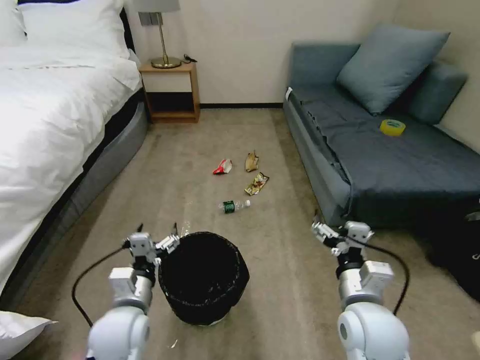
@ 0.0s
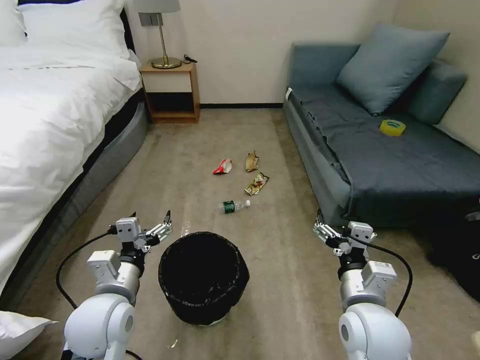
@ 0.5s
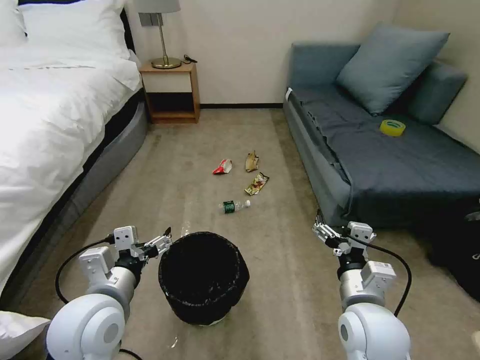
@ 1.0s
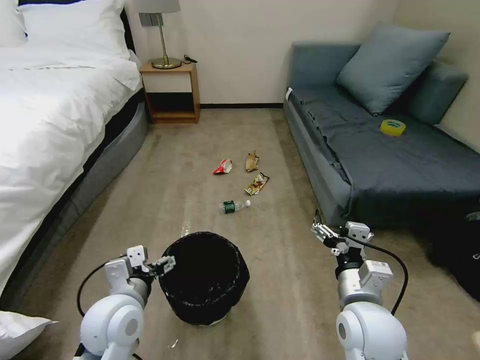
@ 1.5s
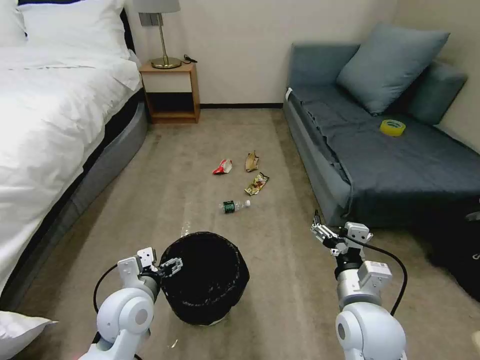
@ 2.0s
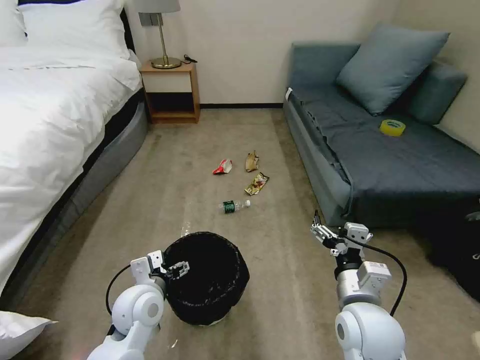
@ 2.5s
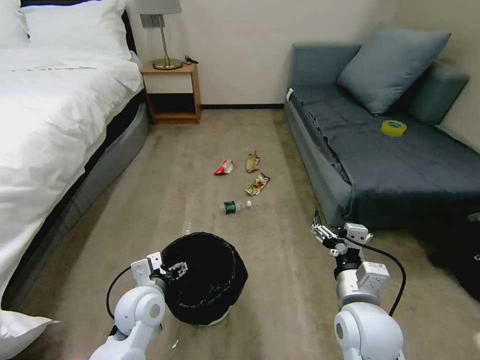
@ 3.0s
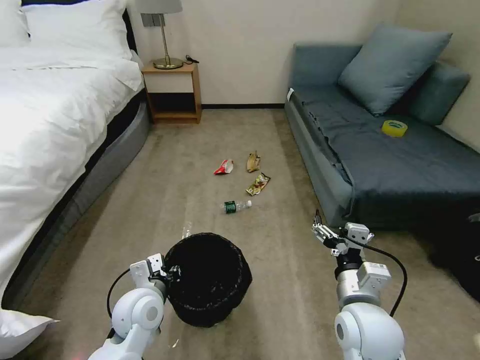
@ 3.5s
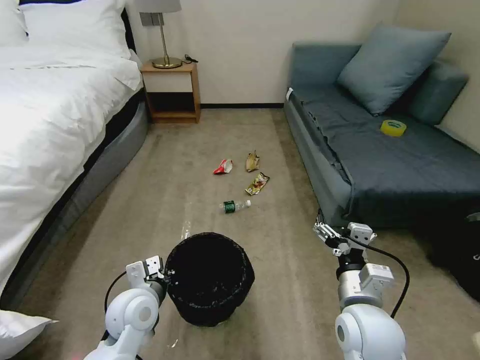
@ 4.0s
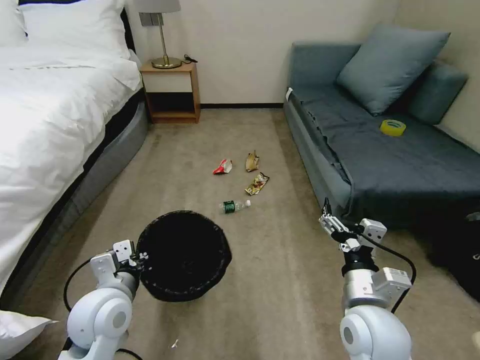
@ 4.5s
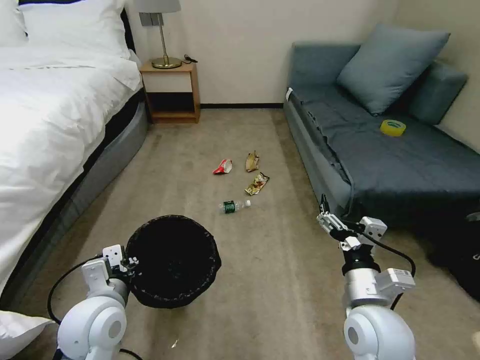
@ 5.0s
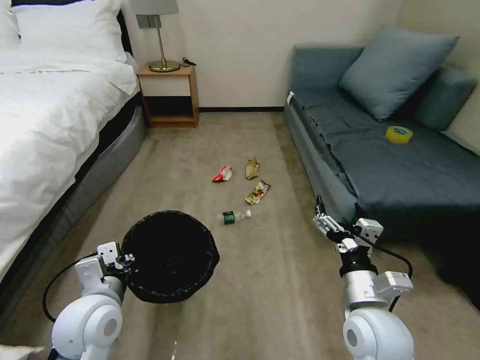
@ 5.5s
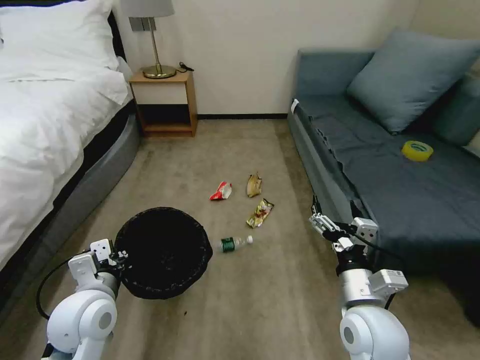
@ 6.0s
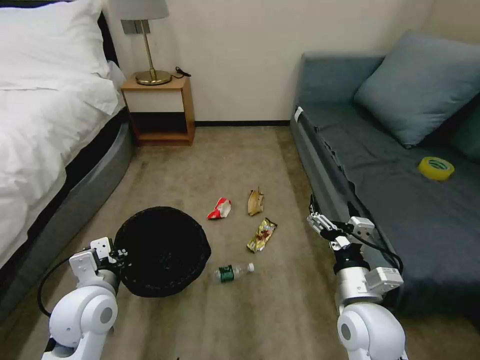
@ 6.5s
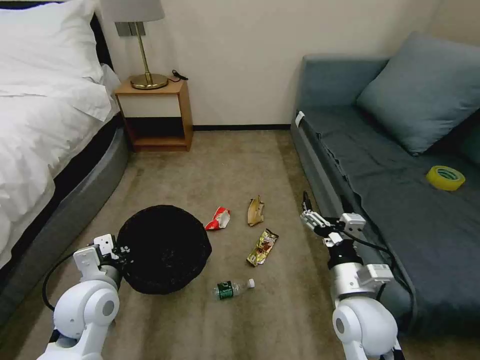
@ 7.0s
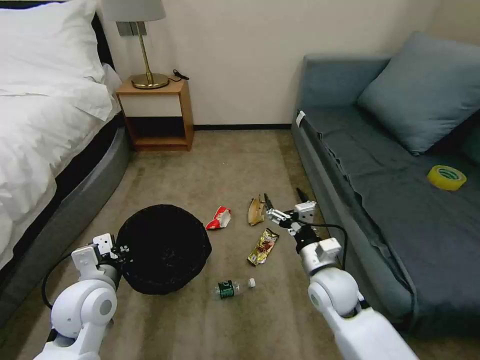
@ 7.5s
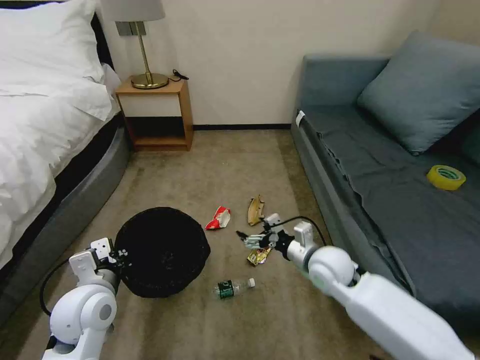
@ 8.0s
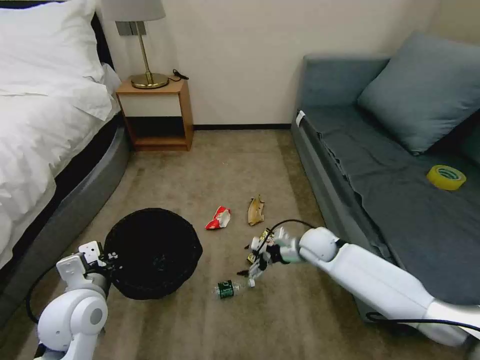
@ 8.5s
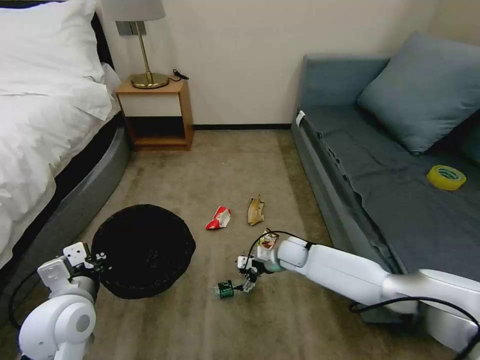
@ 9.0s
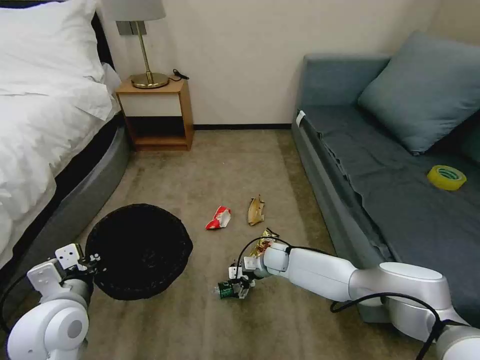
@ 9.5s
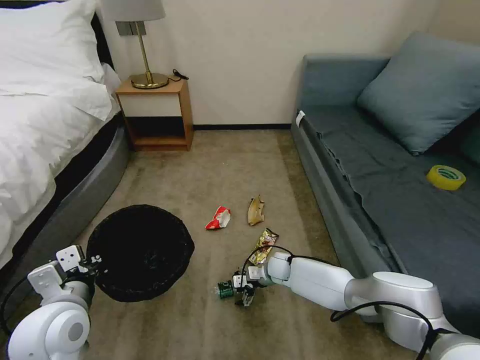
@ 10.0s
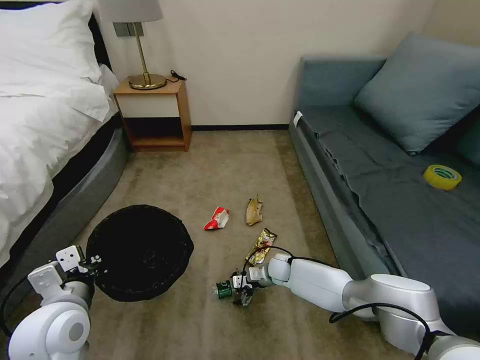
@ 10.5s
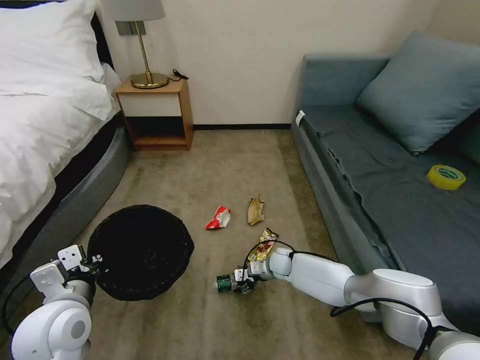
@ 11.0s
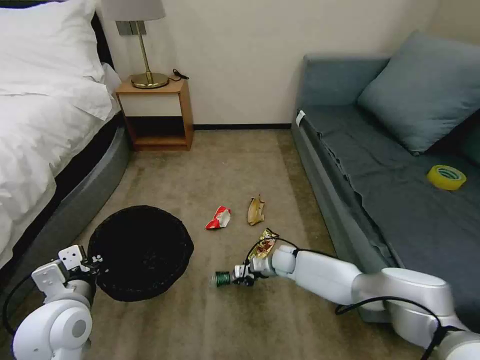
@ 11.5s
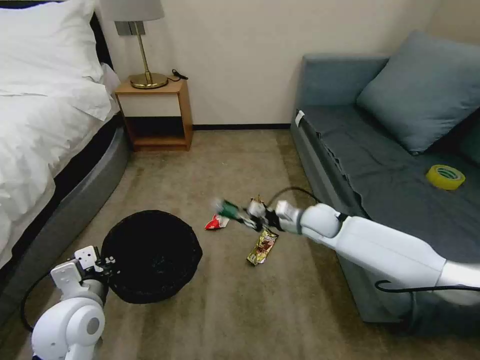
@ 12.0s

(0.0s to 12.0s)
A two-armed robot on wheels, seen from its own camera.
Task of the whole recording: Pick up the trash bin, then pick up the garbage on the floor and place it into the trash bin.
0.0s - 2.0s: The left gripper reaches some 10 cm upward, then returns.
2.0s - 4.0s: The left gripper closes.
4.0s - 6.0s: The left gripper travels upward by approximately 5 cm.
6.0s - 8.0s: The right gripper shifts about 15 cm forward.
8.0s - 10.0s: The left gripper changes place by some 5 cm, while the right gripper moves downward and forward, roughly 20 cm.
10.0s - 12.0s: The right gripper moves upward, roughly 20 cm, and closes up.

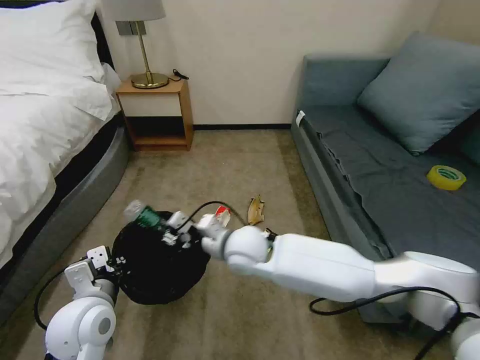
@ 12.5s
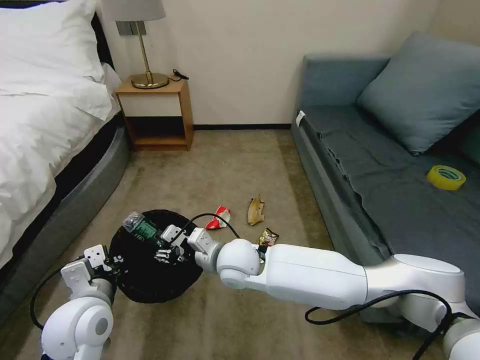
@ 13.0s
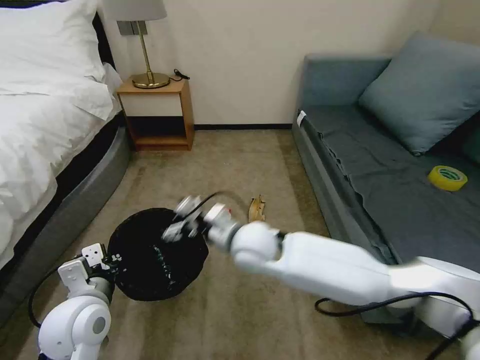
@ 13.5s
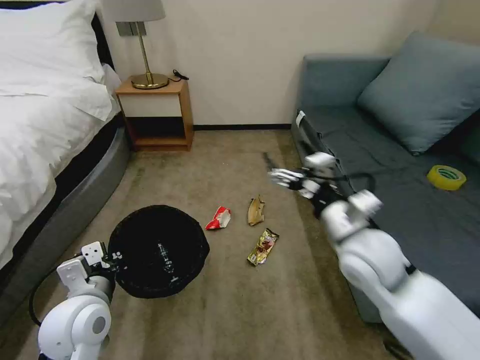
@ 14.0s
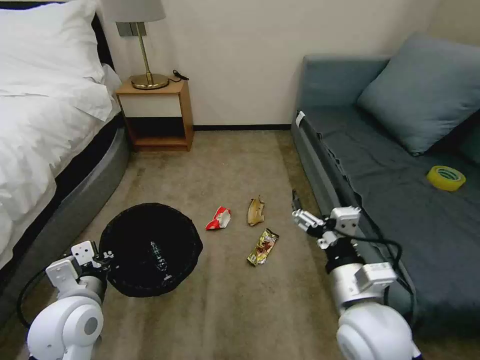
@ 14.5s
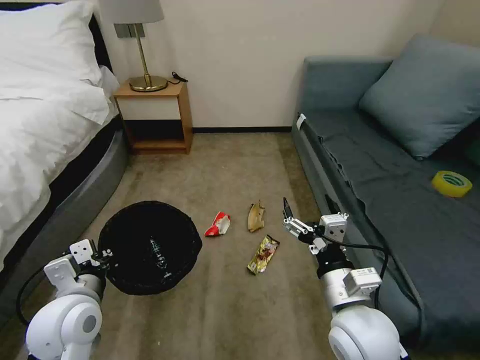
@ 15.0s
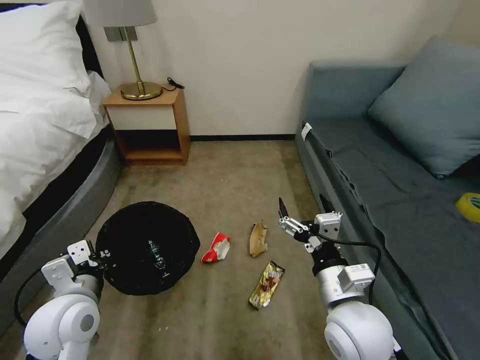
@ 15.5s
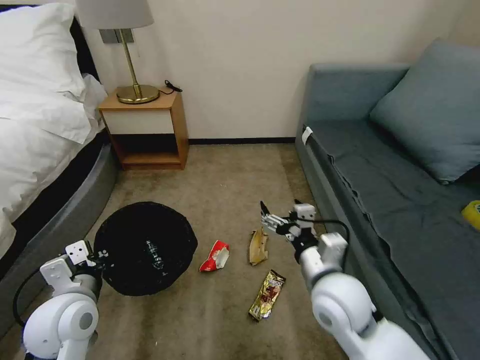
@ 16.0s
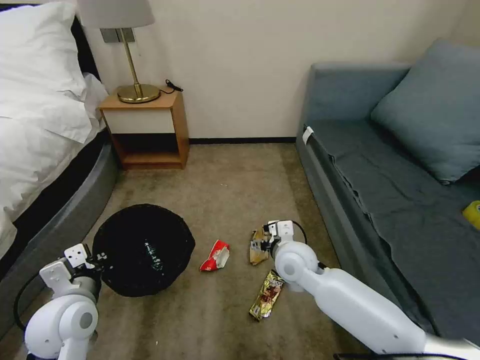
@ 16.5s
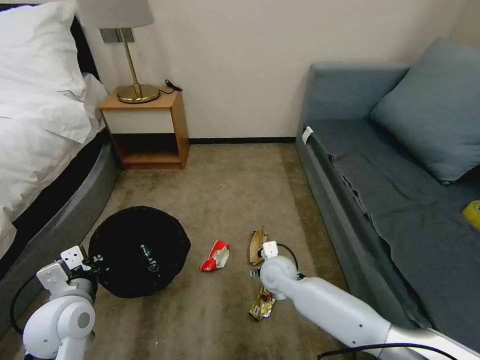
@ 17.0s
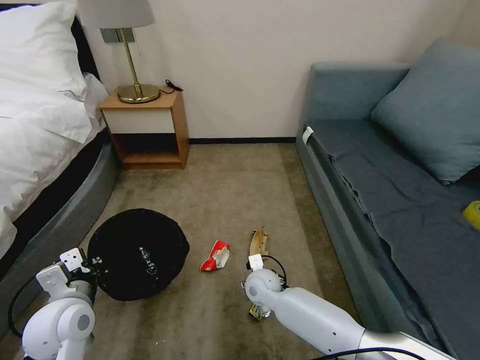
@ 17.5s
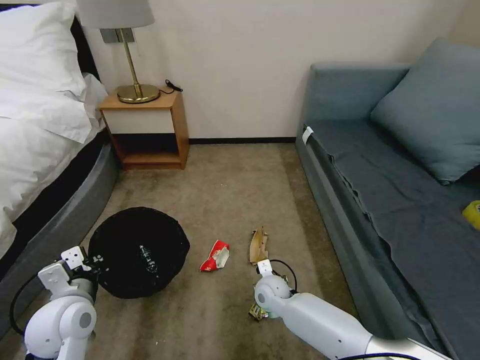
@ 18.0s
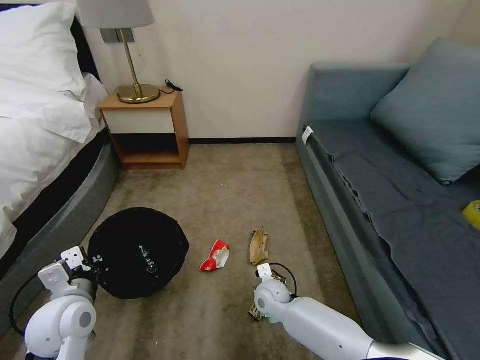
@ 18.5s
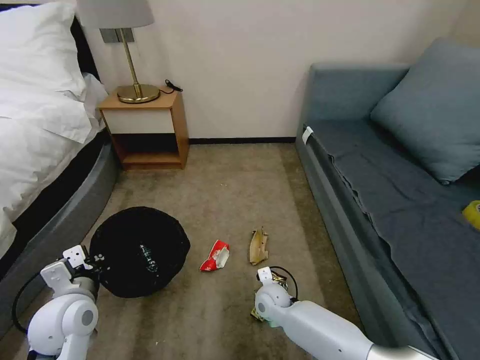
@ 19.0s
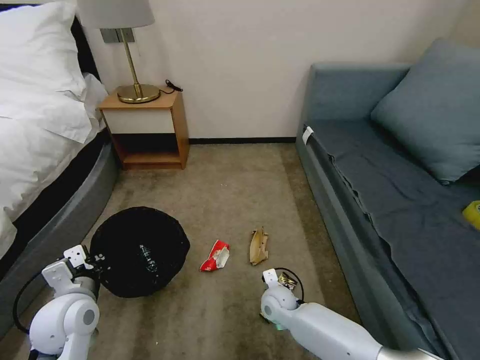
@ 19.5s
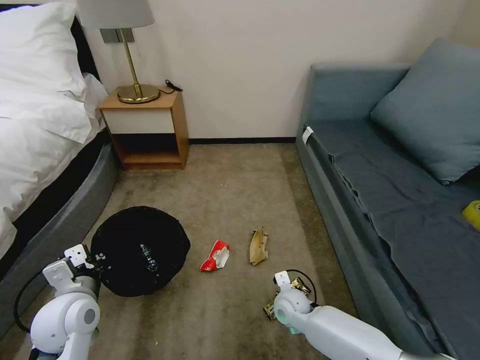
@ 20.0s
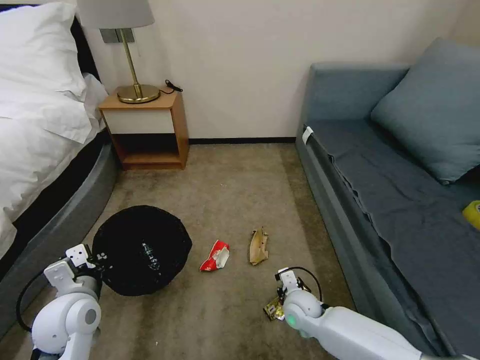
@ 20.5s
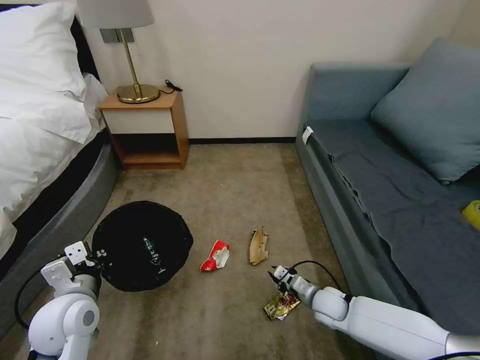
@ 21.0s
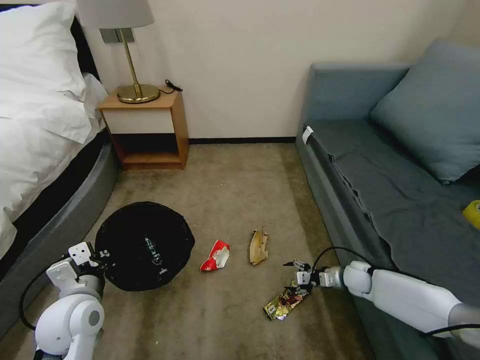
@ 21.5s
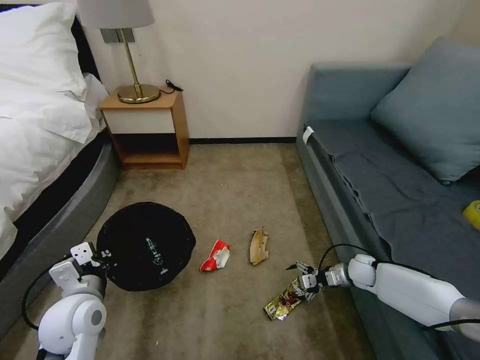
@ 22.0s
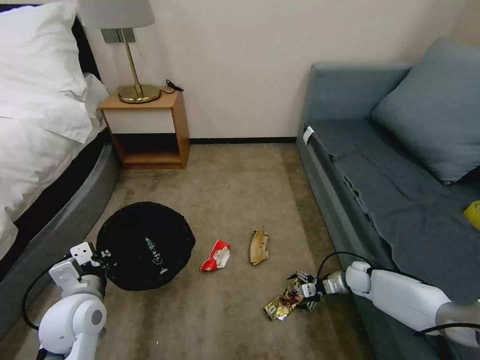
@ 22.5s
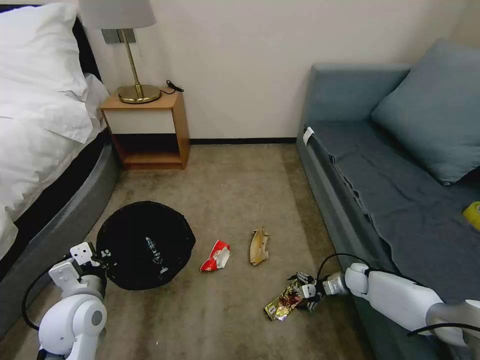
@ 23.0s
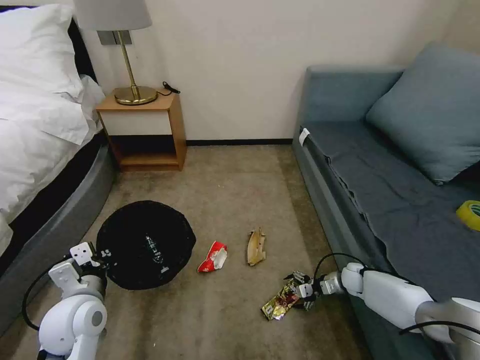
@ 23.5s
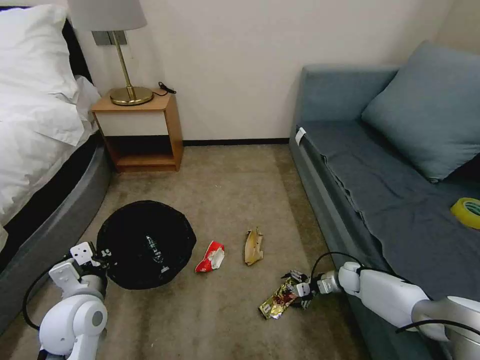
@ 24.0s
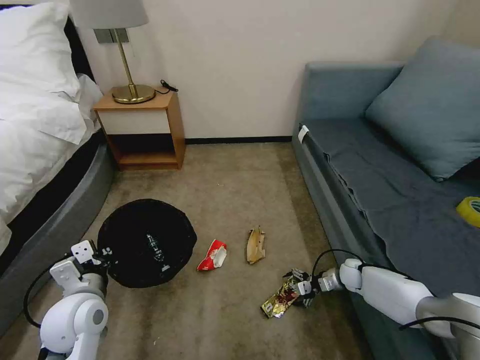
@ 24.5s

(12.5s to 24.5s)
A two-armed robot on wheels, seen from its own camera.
Task of the whole recording: Pick up the trash bin, then pick up the garbage on the floor and place it into the trash bin.
12.5s - 14.5s: The right gripper shifts about 25 cm backward and to the right, and opens.
14.5s - 16.5s: The right gripper is displaced forward, downward and to the left by approximately 20 cm.
16.5s - 18.5s: The right gripper goes approximately 15 cm downward.
18.5s - 20.5s: The right gripper heads to the right, covering about 5 cm, and closes.
20.5s - 22.5s: The right gripper shifts about 25 cm to the right and forward, and opens.
22.5s - 24.5s: The grippers move only a little.

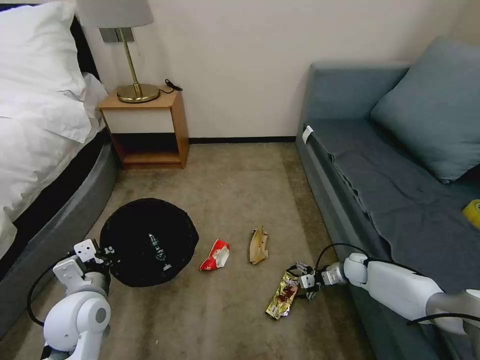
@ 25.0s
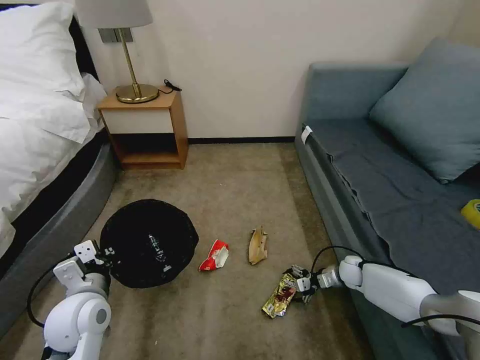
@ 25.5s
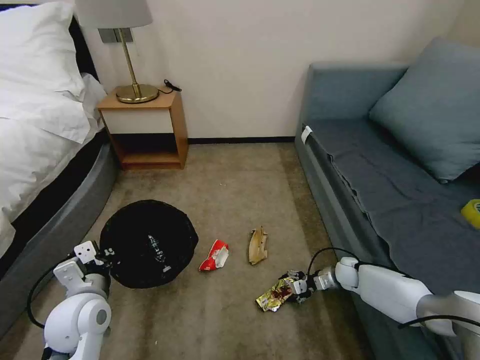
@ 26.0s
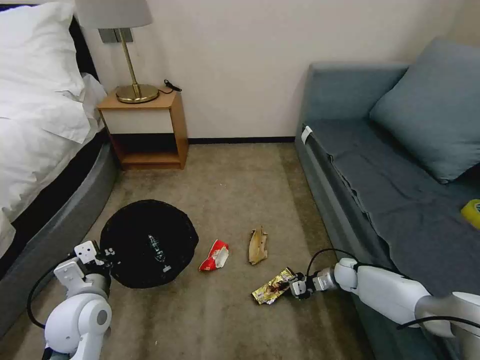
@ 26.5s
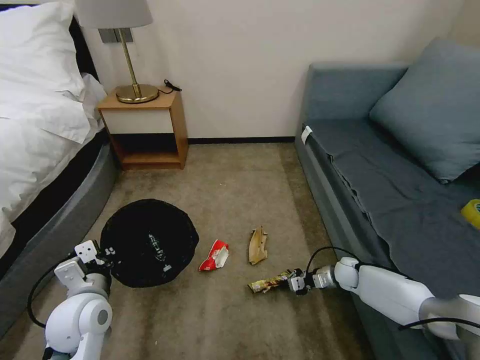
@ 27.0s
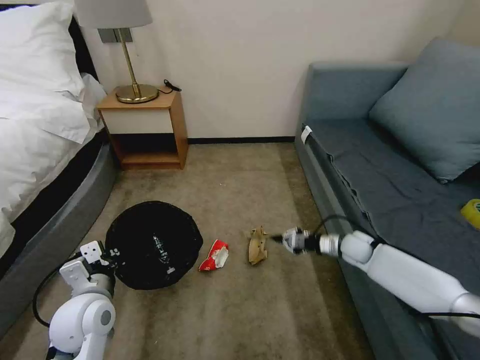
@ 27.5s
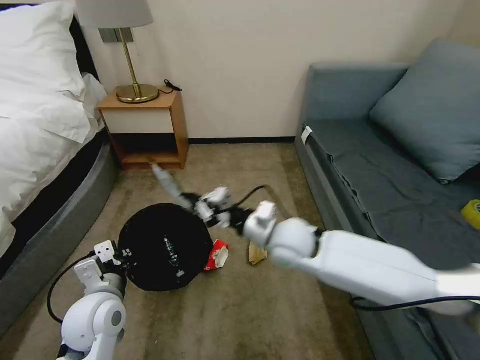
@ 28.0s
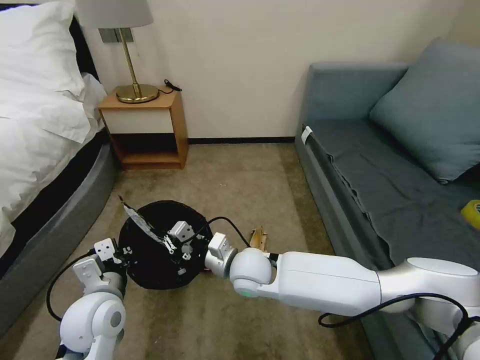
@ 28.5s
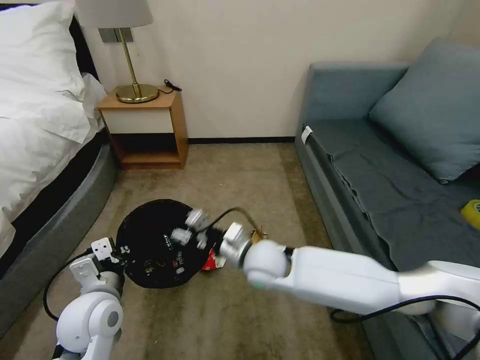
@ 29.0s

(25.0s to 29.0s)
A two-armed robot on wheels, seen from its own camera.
Task of the whole recording: Pick up the trash bin, then pick up the garbage on the floor and place it into the trash bin.
25.0s - 27.0s: The right gripper closes.
27.0s - 29.0s: The right gripper travels to the left and upward by some 40 cm, and opens its fingers.
